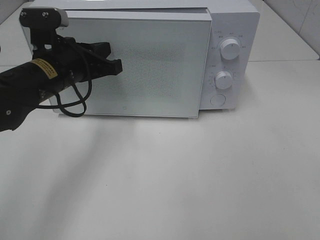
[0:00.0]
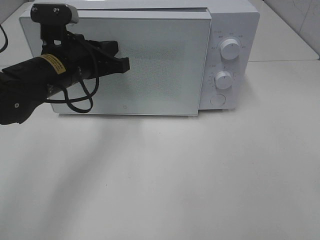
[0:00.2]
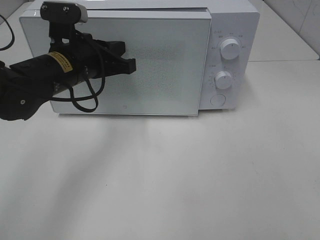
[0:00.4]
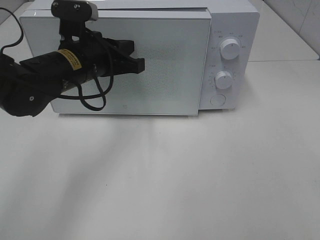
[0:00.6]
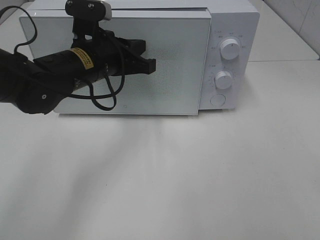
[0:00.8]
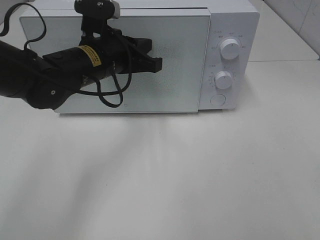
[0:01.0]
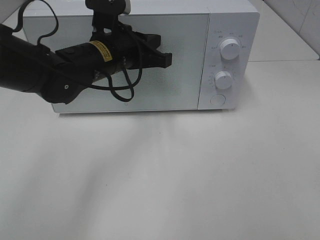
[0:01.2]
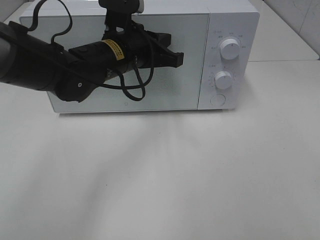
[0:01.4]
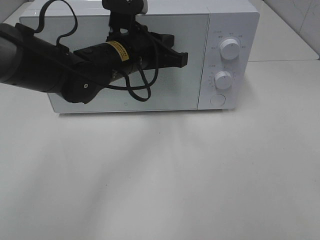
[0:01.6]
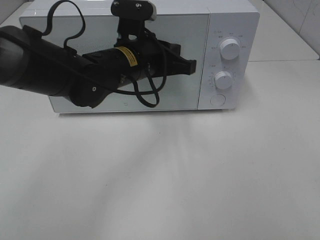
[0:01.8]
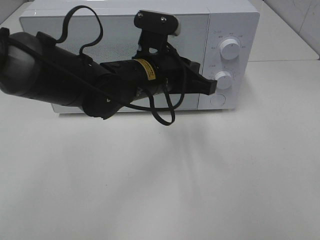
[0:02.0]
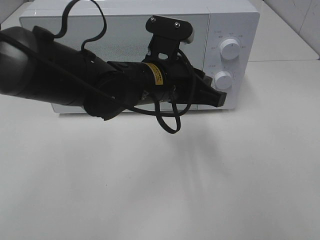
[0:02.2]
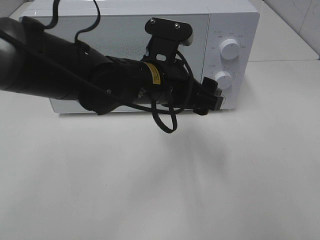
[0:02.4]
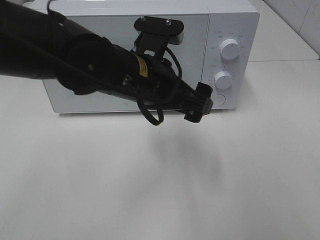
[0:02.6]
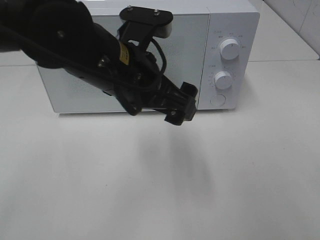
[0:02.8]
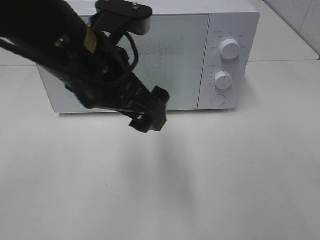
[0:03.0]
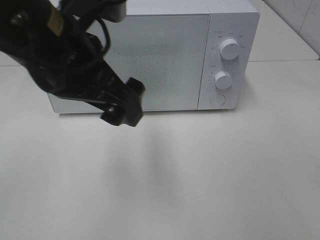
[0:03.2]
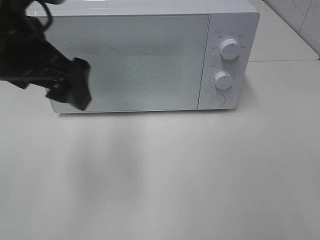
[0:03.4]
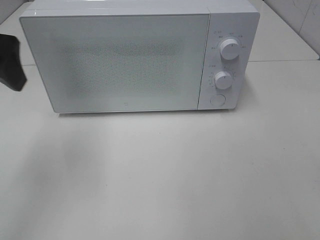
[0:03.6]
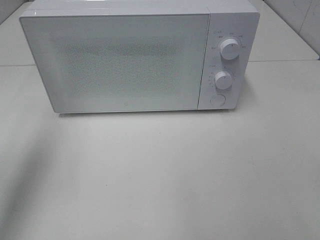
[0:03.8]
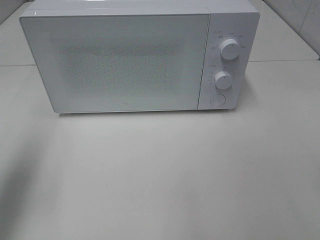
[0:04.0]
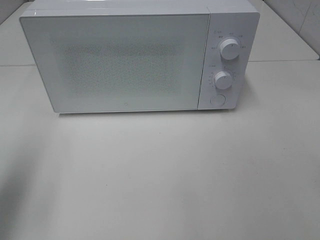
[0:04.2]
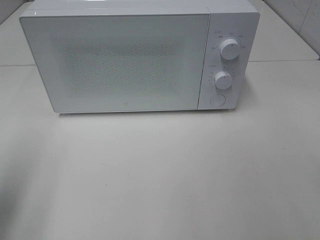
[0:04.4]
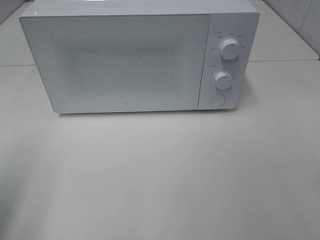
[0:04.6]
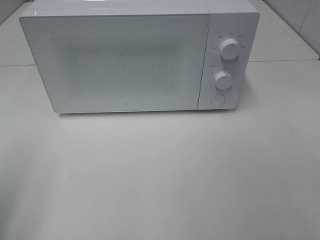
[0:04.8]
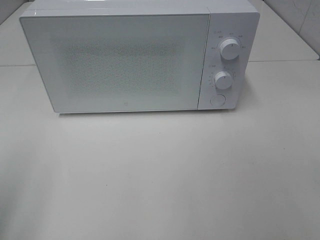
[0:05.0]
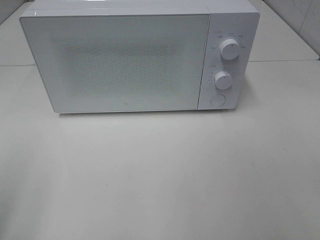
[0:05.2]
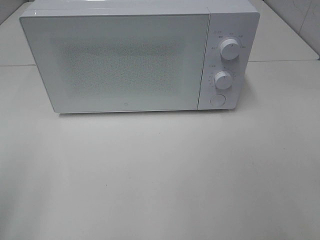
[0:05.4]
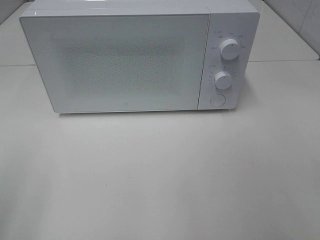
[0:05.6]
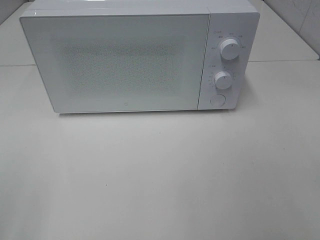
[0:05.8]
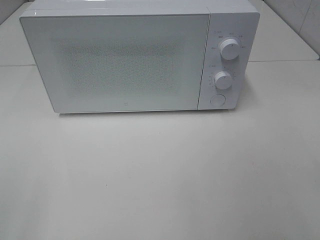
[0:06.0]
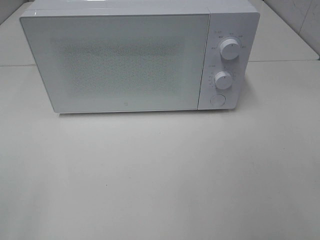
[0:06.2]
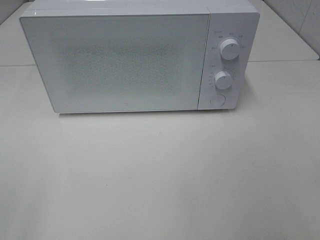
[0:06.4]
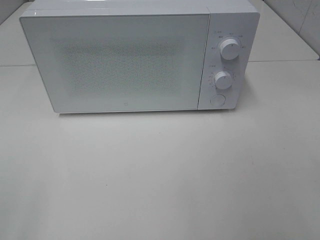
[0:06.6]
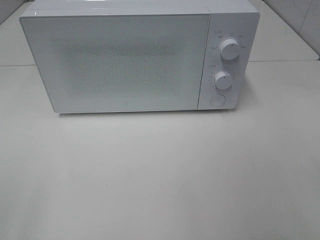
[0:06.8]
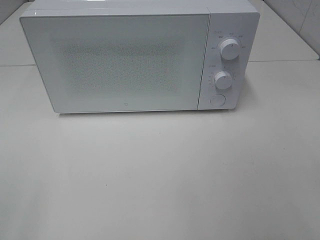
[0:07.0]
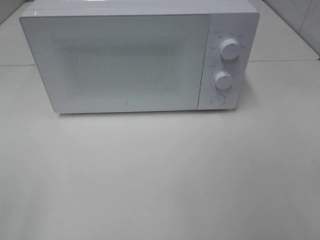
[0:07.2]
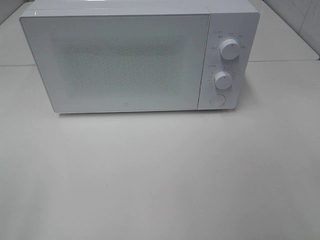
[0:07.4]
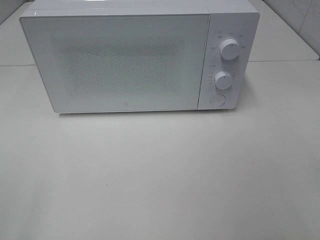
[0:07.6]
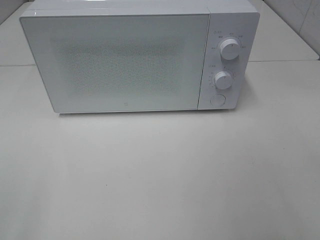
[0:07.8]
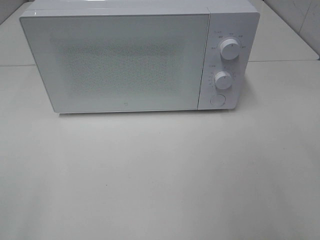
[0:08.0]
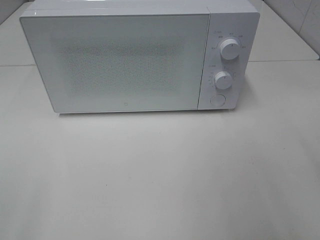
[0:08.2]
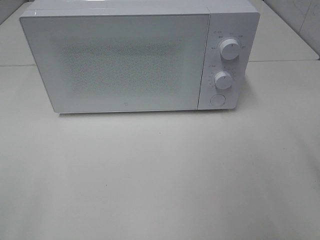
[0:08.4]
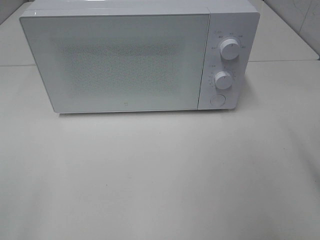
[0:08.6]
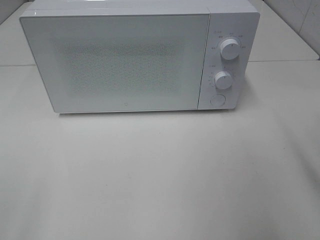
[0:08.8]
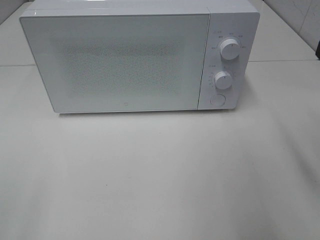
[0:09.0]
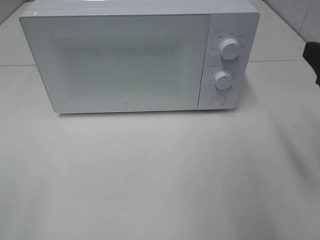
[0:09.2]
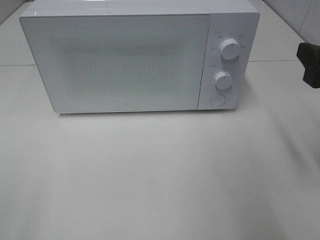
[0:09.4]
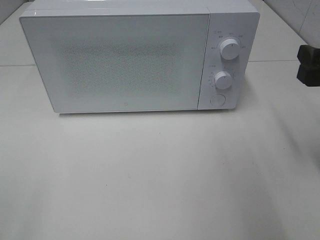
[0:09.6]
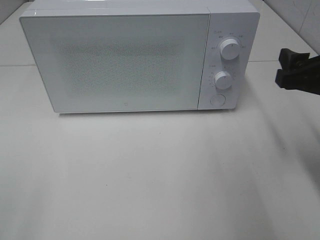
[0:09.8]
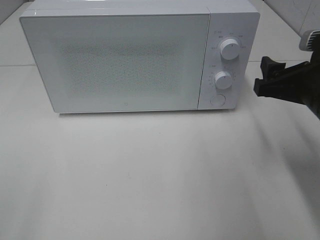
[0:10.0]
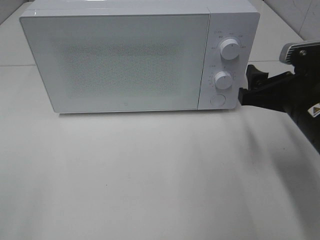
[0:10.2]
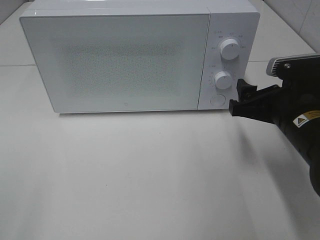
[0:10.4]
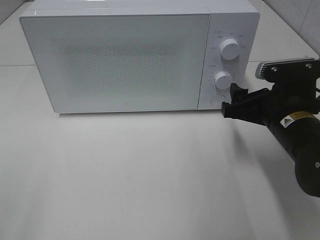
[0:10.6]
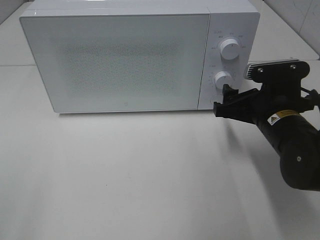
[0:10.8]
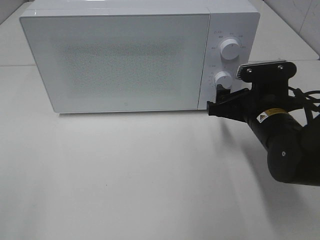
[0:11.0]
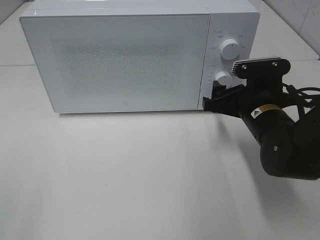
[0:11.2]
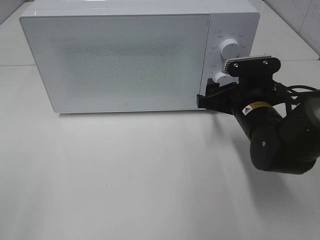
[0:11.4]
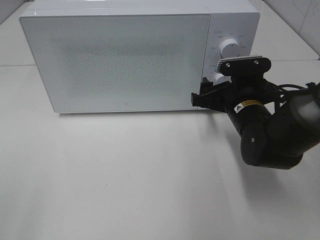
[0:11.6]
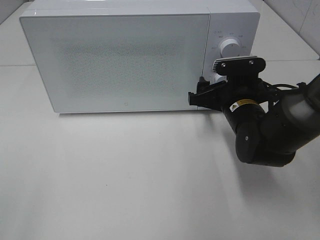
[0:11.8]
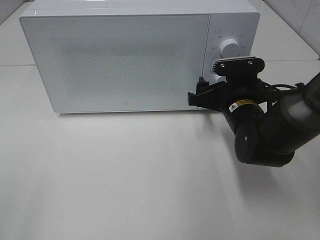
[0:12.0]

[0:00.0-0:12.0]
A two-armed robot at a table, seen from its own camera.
Task of the whole recording: Heat the burger.
0:00.0 to 0:01.6: The left gripper goes roughly 10 cm to the right.
0:01.6 to 0:03.0: The left gripper is displaced backward and upward by some 15 cm, and opens.
0:03.0 to 0:04.4: The left gripper heads to the left, covering approximately 25 cm.
0:04.4 to 0:06.0: The left gripper travels backward by some 15 cm.
0:09.0 to 0:10.4: The right gripper goes about 15 cm downward, forward and to the left.
0:10.4 to 0:12.0: The right gripper goes roughly 10 cm forward, downward and to the left.

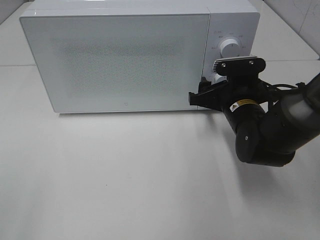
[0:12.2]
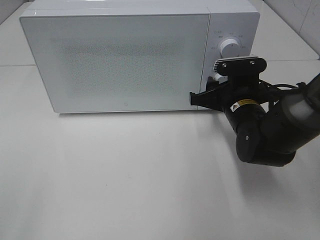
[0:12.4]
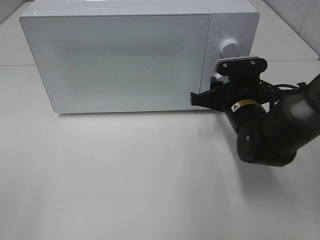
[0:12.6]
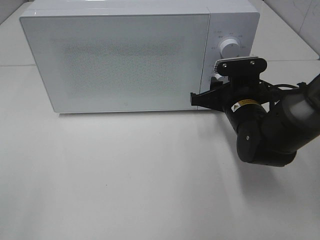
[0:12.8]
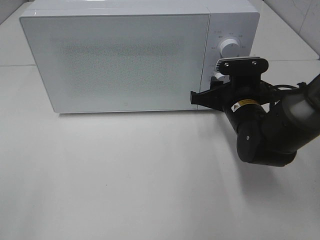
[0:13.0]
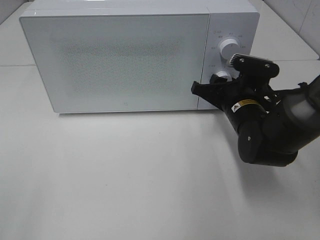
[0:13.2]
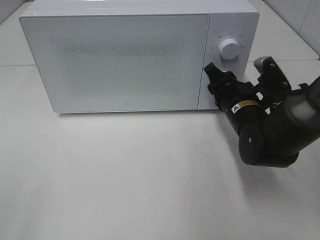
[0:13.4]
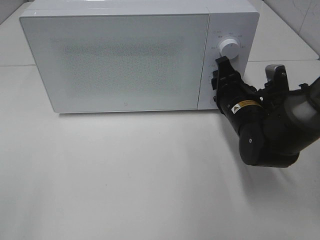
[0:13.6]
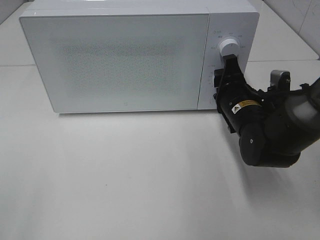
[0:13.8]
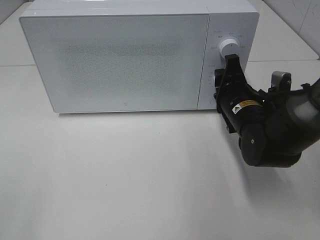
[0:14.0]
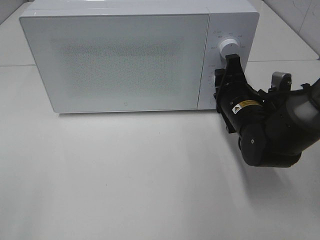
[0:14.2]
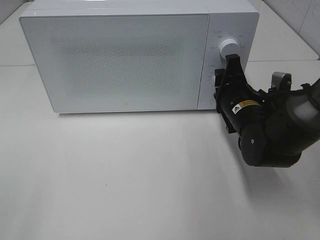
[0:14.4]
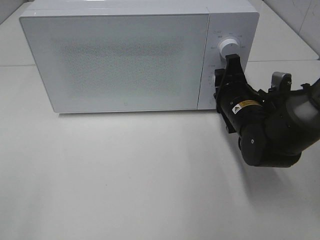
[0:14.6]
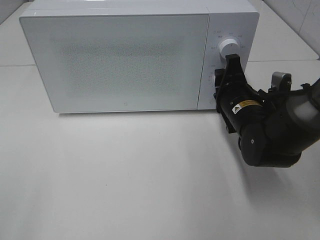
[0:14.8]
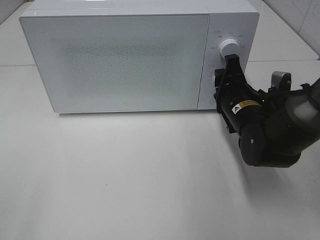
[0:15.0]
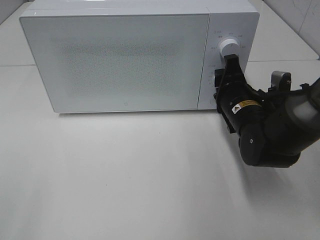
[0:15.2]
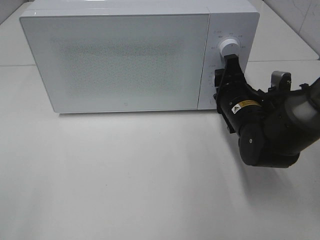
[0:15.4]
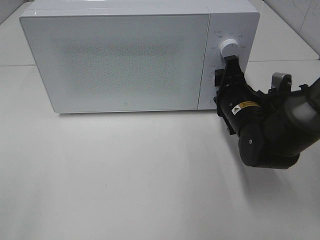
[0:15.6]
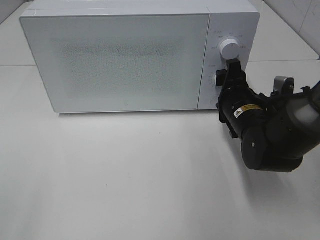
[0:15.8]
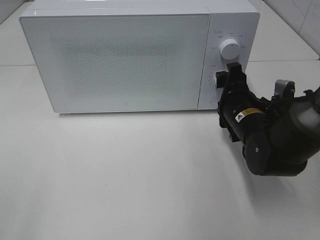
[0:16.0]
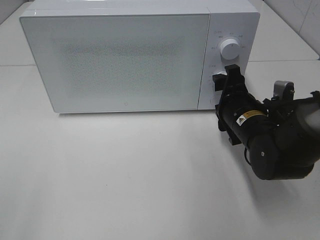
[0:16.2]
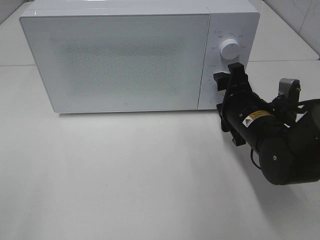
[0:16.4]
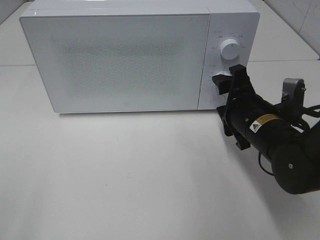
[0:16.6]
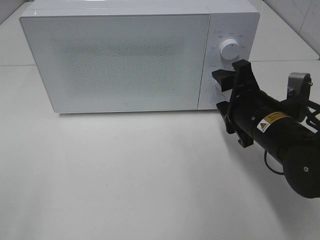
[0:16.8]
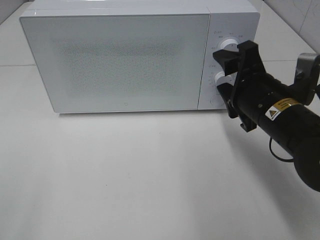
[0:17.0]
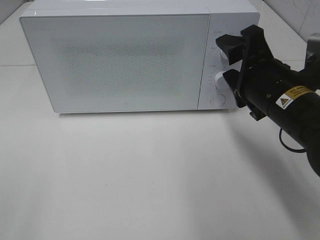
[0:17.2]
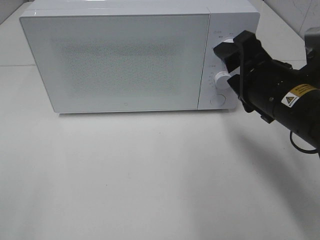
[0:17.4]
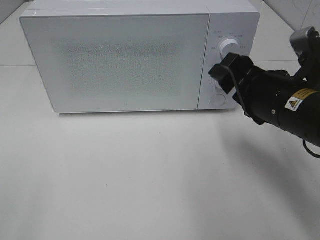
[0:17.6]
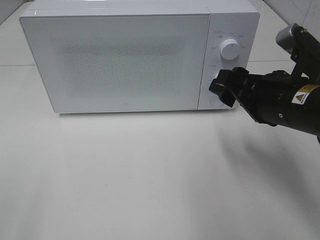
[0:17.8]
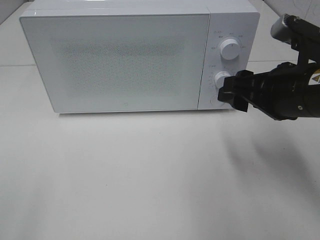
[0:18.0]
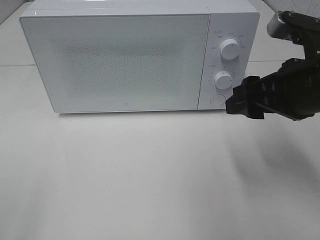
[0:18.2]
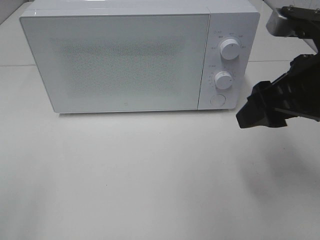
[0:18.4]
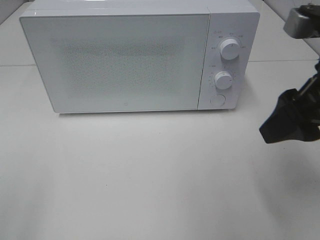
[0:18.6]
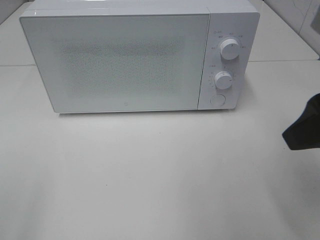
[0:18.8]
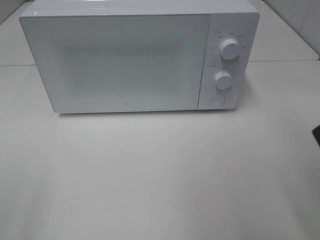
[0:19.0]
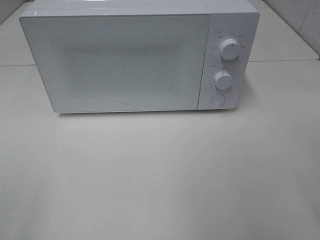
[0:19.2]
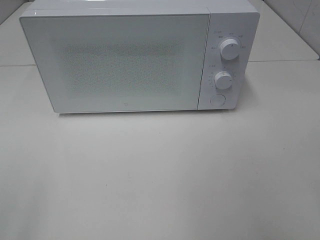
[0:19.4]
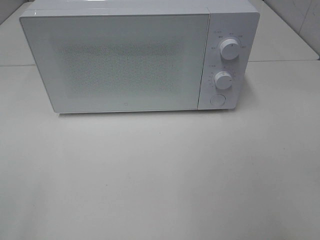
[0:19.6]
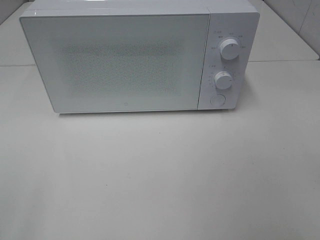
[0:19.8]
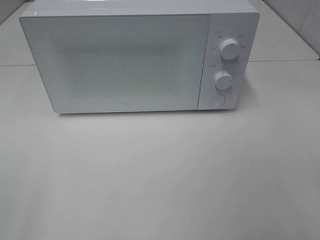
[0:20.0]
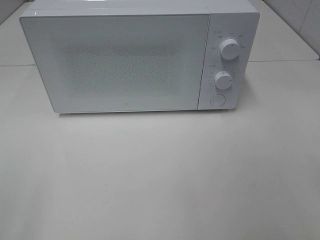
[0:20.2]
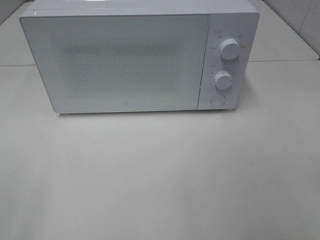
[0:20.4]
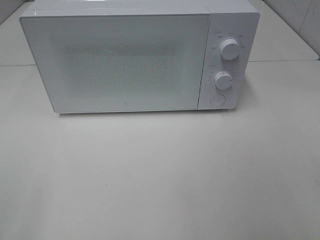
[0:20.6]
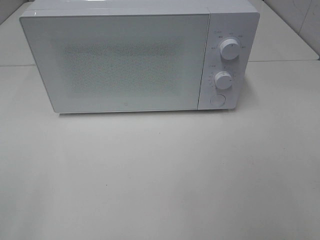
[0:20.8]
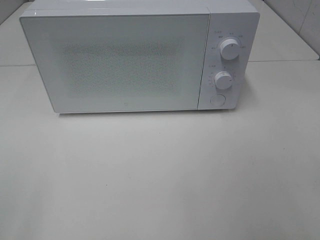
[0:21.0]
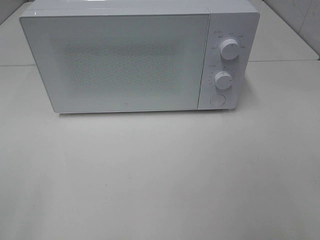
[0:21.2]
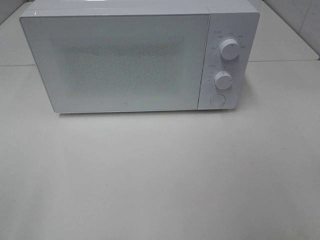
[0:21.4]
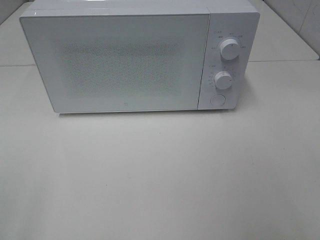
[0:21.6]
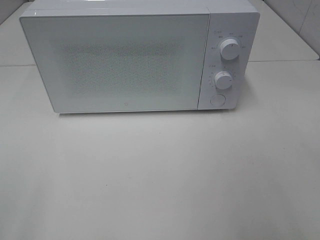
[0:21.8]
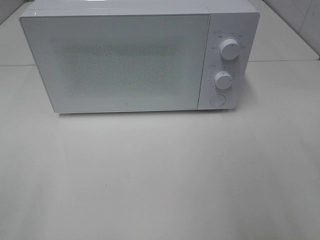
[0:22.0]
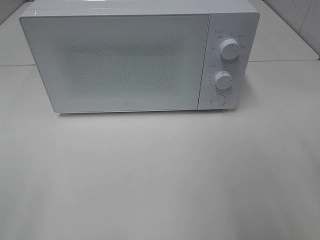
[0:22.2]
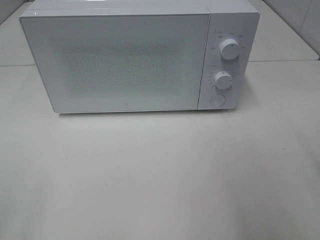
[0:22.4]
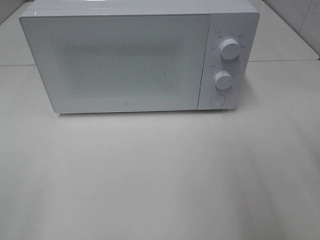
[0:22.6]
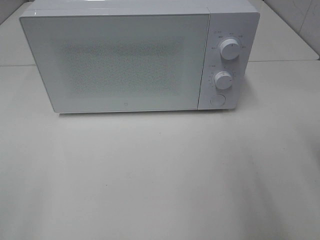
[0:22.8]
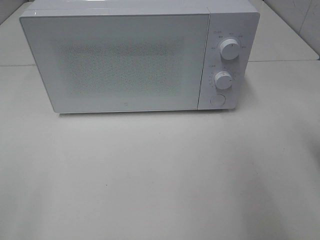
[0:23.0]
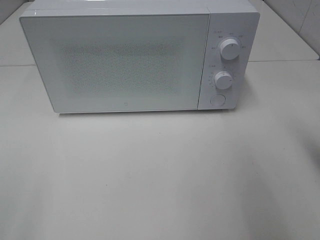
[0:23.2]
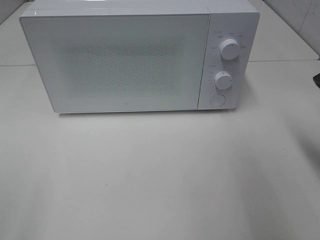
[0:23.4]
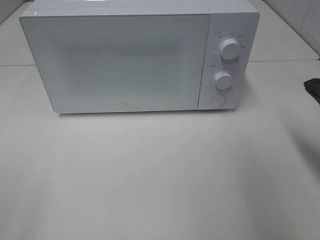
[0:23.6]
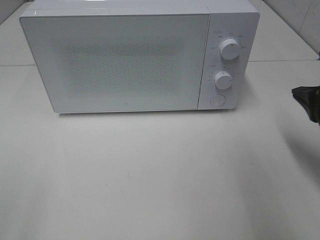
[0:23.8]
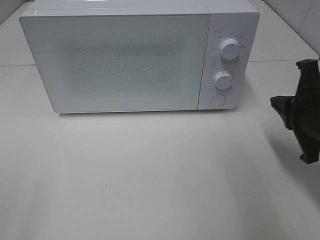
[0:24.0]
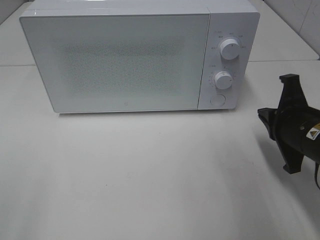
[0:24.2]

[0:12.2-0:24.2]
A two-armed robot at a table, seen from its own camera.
Task of the whole recording: Heat the burger.
Step, 0:12.2 to 0:15.6: Right hand: twist timer button.
0:13.8 to 0:15.2: Both grippers stay about where they are.
0:15.2 to 0:16.6: The right gripper moves backward, about 5 cm.
0:16.6 to 0:18.2: The right gripper travels upward by roughly 10 cm.
0:18.2 to 0:19.8: The right gripper goes roughly 25 cm backward and to the right.
0:22.6 to 0:24.2: The right gripper is displaced downward, forward and to the left by about 15 cm, and closes up.
